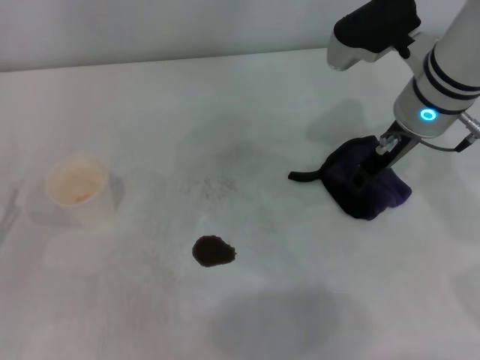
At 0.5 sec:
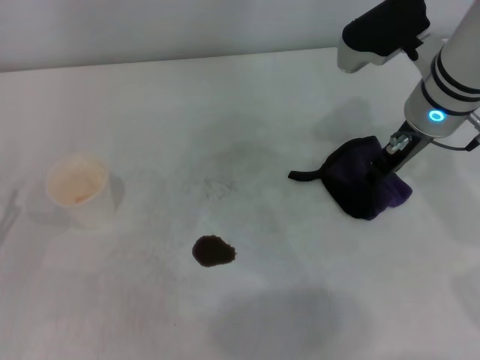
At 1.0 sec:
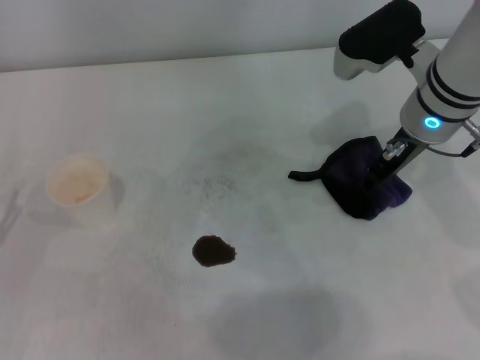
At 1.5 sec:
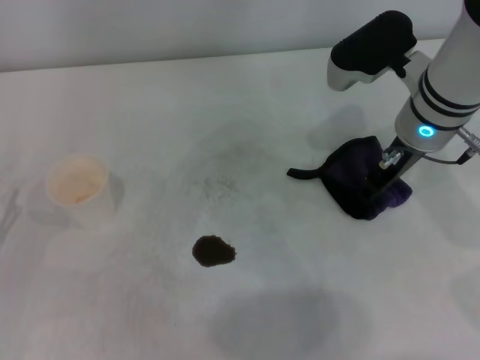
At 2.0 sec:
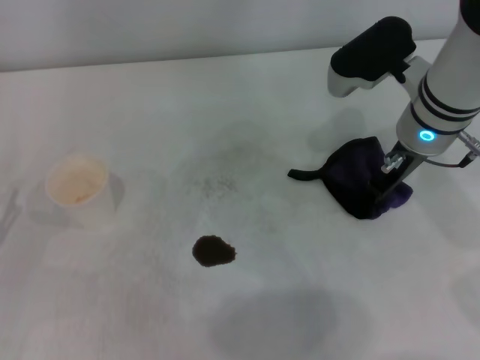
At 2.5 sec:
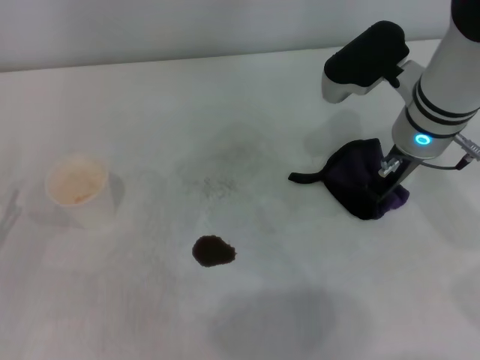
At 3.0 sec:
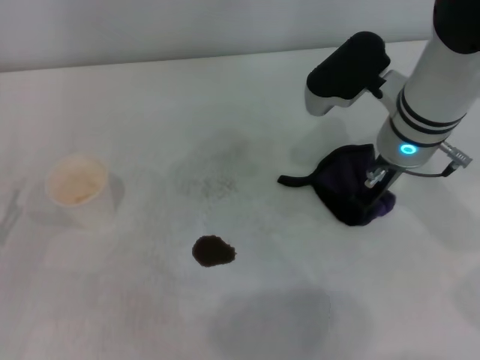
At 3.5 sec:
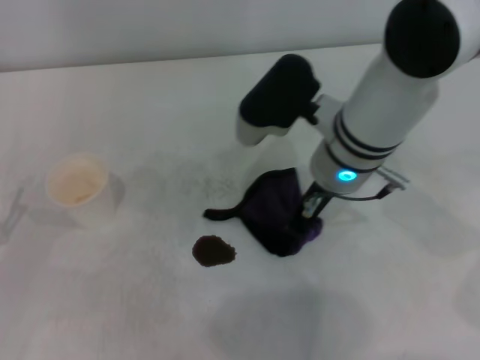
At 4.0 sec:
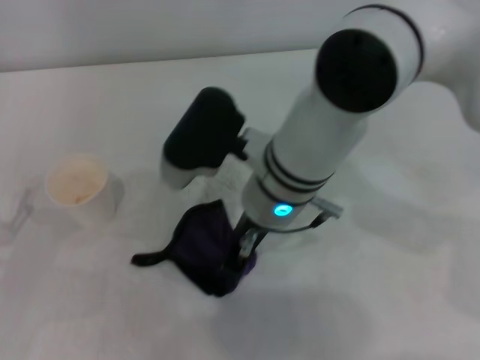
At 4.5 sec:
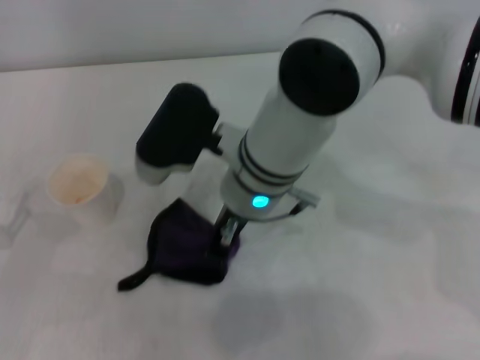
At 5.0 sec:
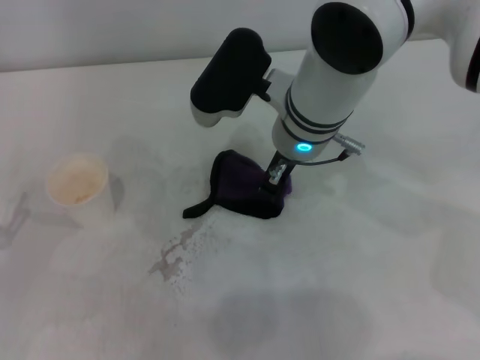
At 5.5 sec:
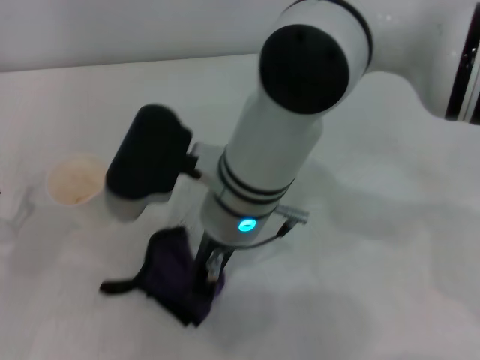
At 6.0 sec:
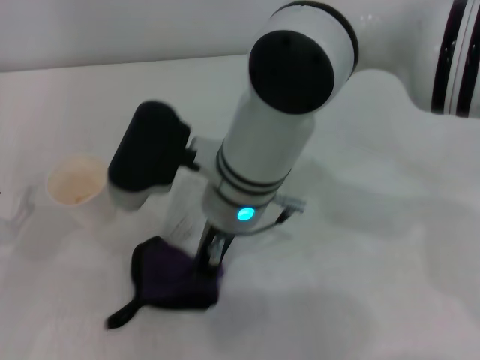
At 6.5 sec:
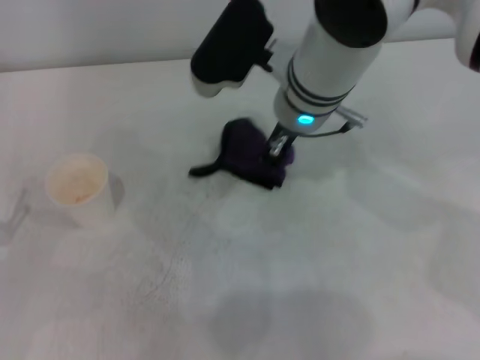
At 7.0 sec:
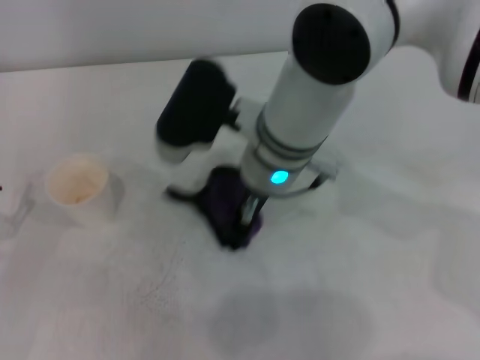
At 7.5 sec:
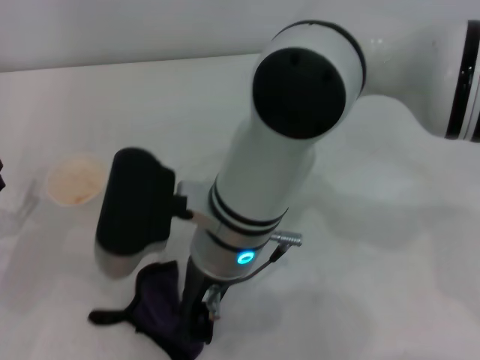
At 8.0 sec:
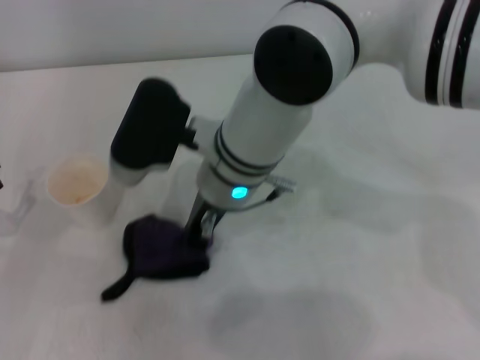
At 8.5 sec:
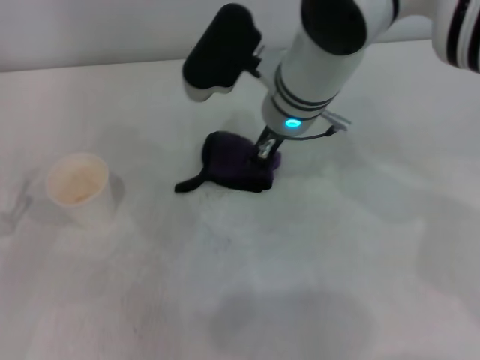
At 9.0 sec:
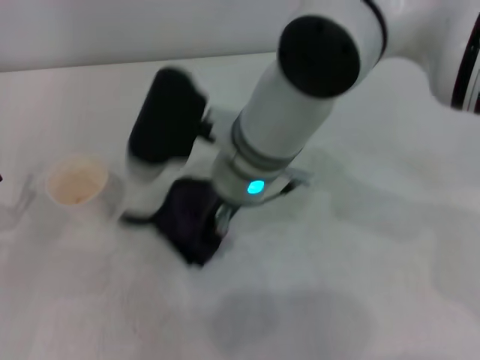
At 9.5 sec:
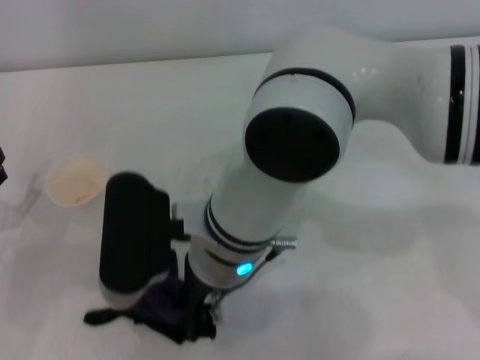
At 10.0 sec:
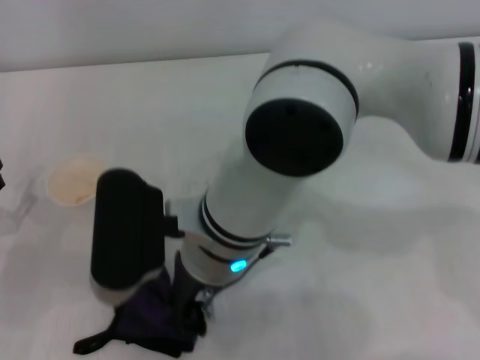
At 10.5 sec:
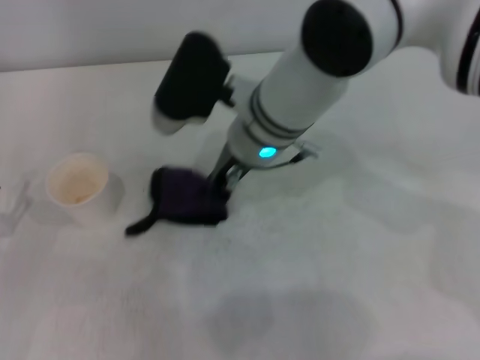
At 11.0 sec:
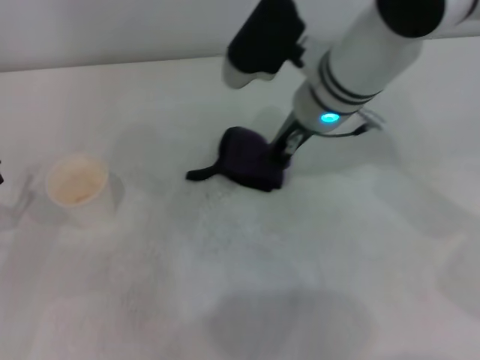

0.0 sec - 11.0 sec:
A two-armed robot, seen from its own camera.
0.0 sec - 2.0 sec: The grippers stay close to where they were, moving slightly.
2.0 sec - 3.5 sec: The right gripper travels to the left by about 10 cm, and closes its fingers.
3.5 sec - 5.5 sec: The right gripper moves left and right over about 10 cm, changing direction 2 times.
5.5 sec - 7.5 sec: The right gripper travels forward and back again, some 10 cm each way.
7.5 sec - 9.0 sec: The right gripper heads forward, covering about 5 cm.
9.0 sec - 11.0 sec: The right gripper moves to the right and forward, roughly 10 cm.

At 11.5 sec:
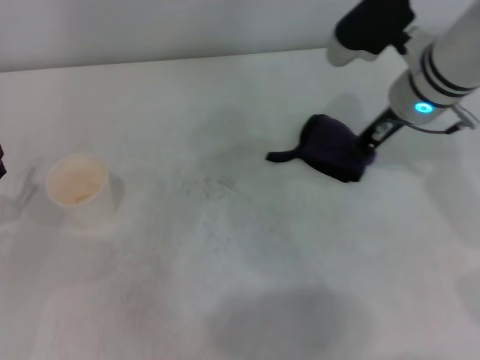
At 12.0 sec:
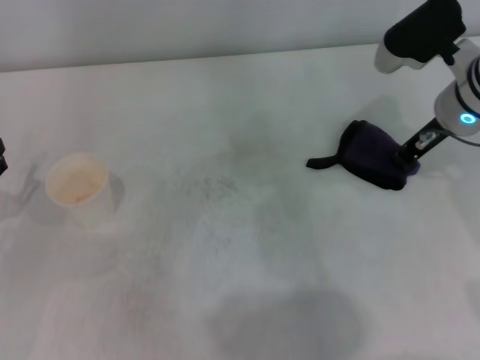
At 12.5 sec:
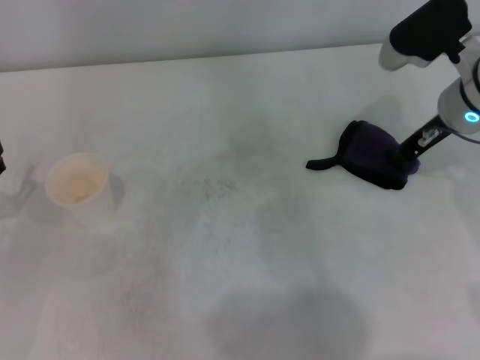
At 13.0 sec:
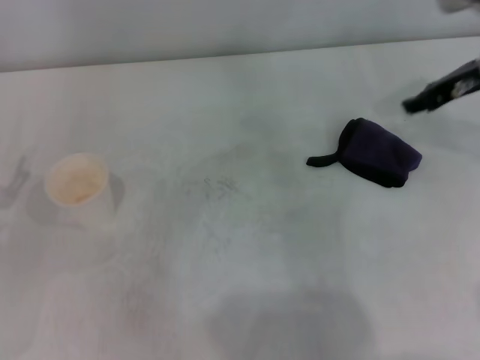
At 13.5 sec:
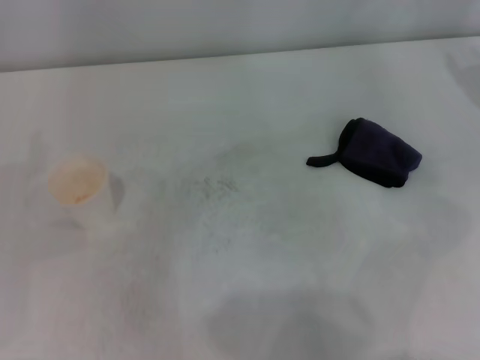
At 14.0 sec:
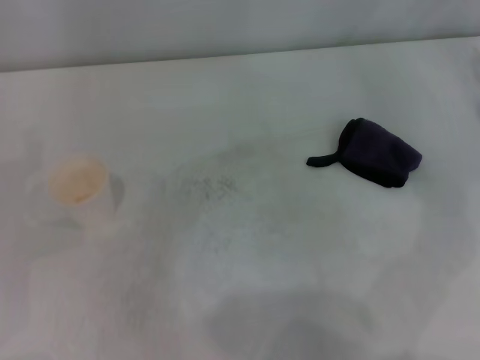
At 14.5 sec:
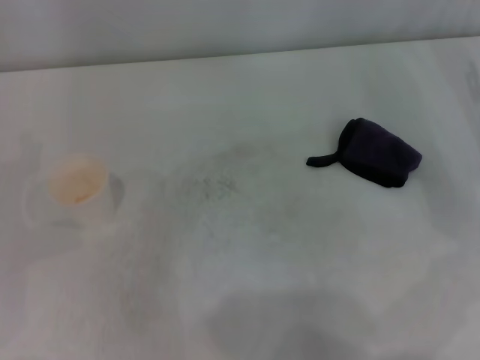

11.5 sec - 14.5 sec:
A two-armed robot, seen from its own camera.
Step, 11.5 sec - 12.5 sec: Place the rag on the table with the right gripper.
11.5 sec - 13.0 sec: The right gripper moves to the right, about 10 cm, and opens up.
13.0 sec - 14.5 sec: The right gripper goes about 15 cm to the right, downward and backward.
